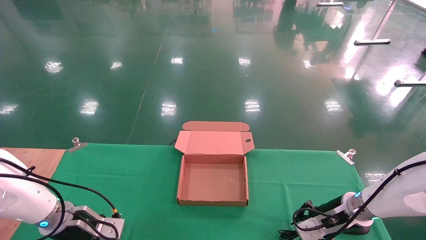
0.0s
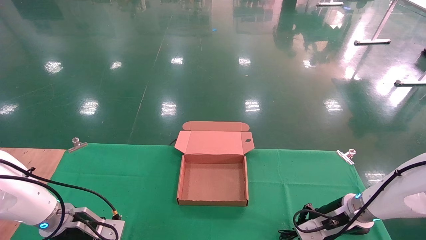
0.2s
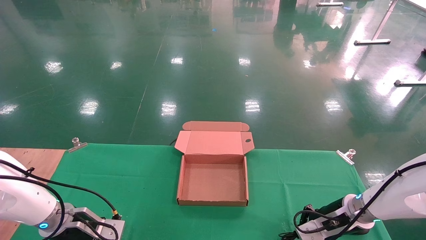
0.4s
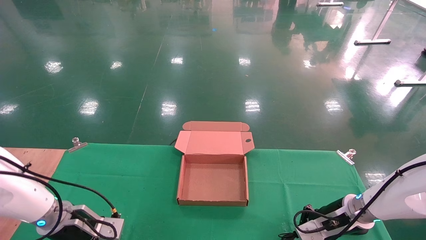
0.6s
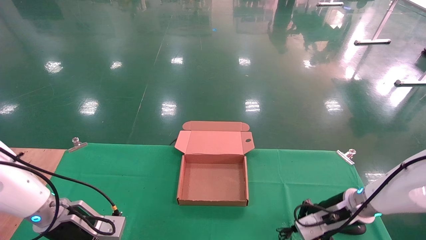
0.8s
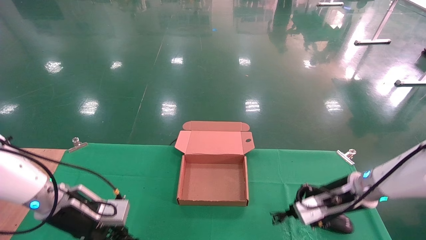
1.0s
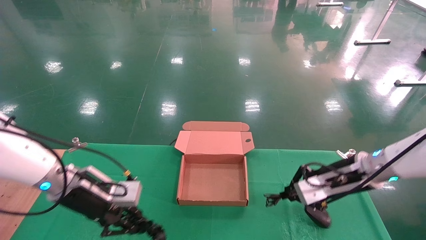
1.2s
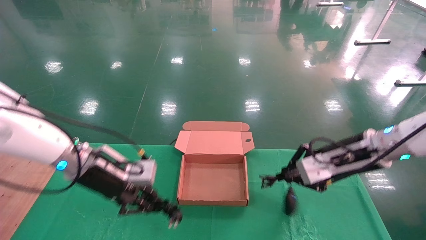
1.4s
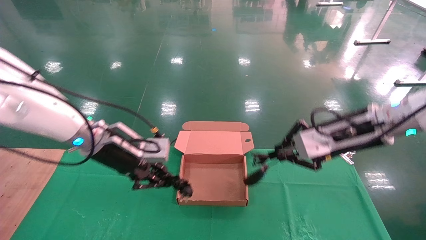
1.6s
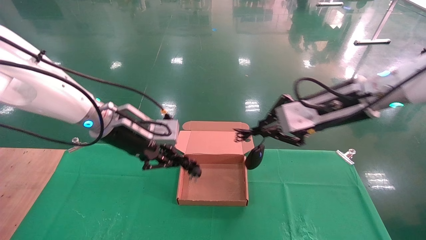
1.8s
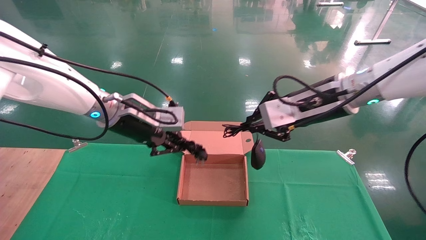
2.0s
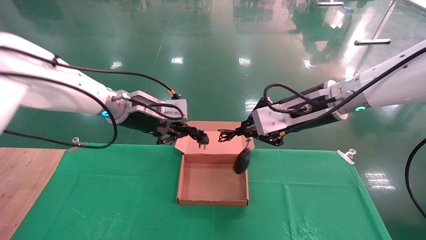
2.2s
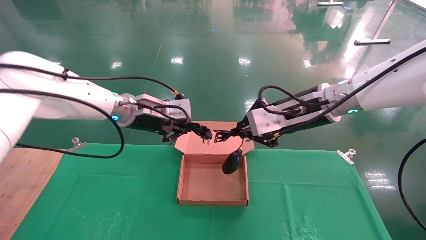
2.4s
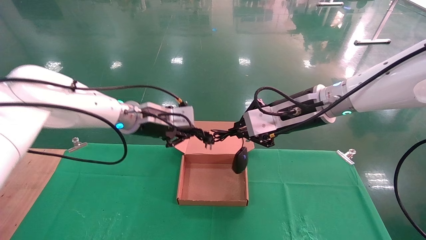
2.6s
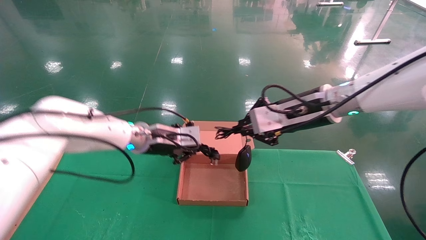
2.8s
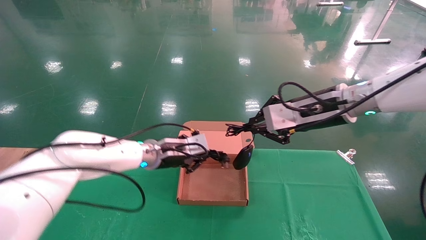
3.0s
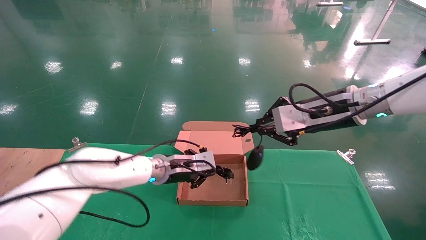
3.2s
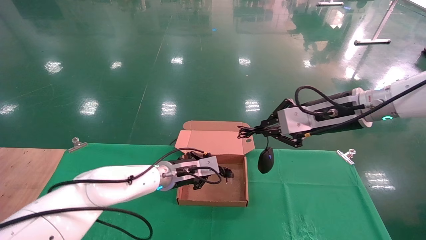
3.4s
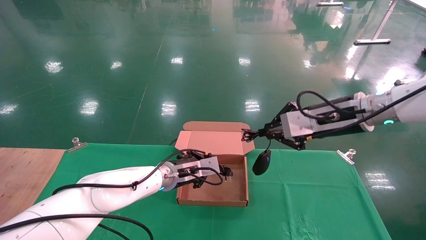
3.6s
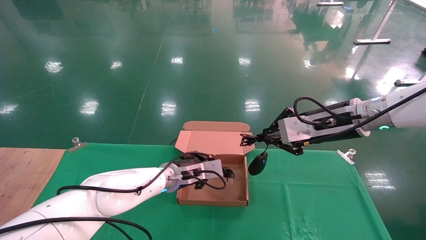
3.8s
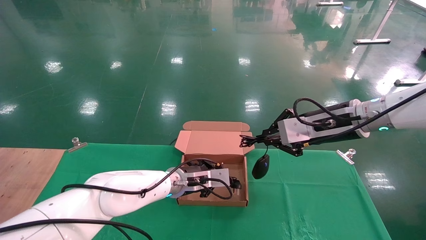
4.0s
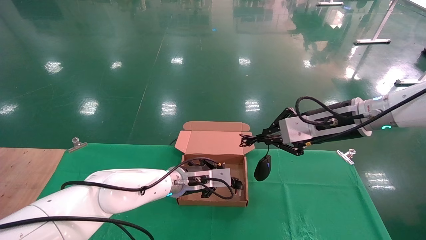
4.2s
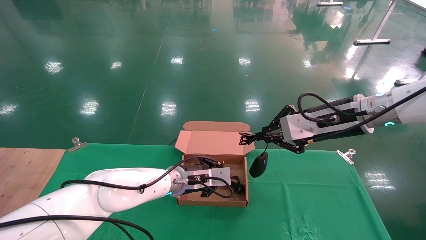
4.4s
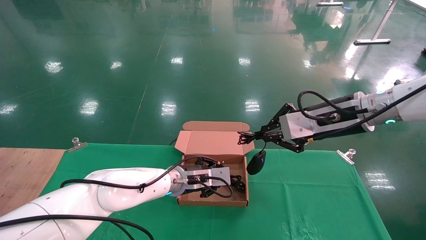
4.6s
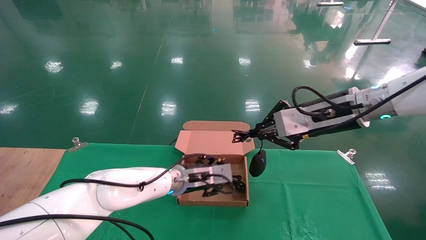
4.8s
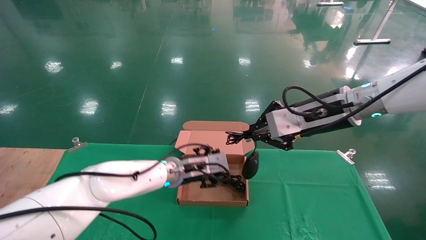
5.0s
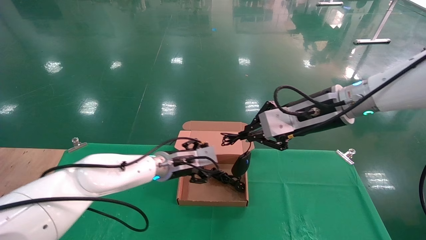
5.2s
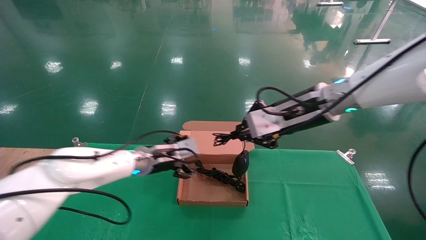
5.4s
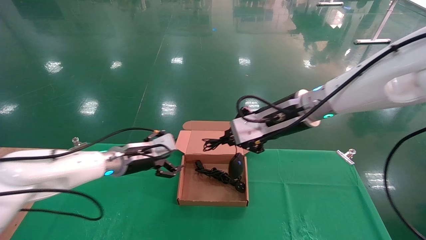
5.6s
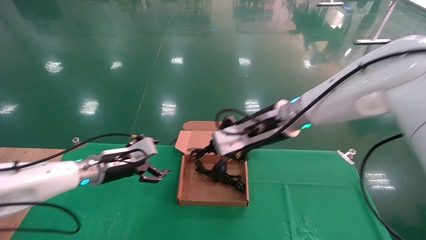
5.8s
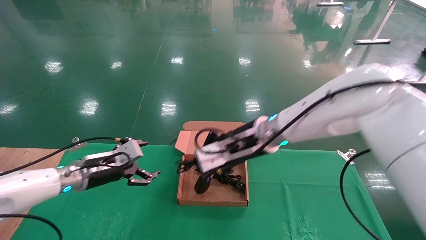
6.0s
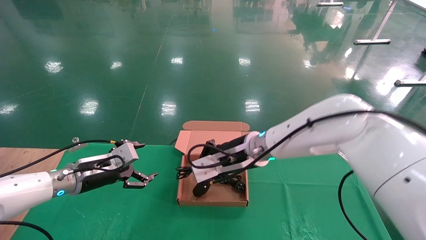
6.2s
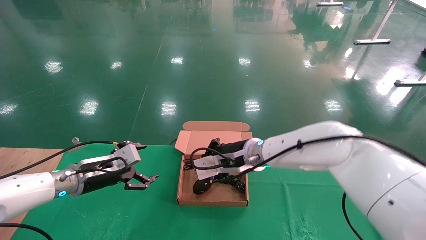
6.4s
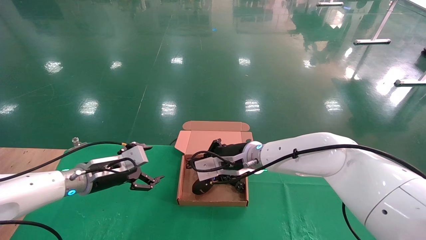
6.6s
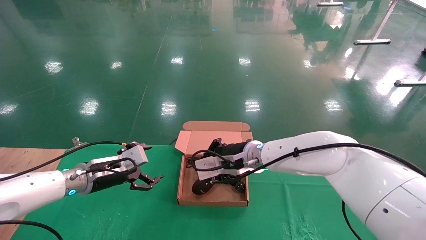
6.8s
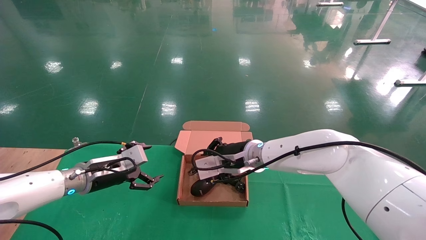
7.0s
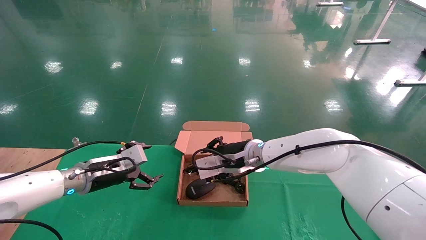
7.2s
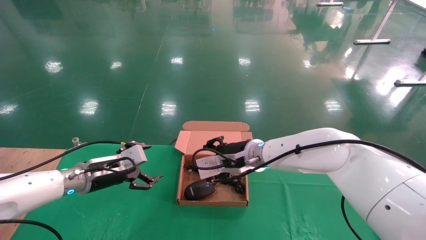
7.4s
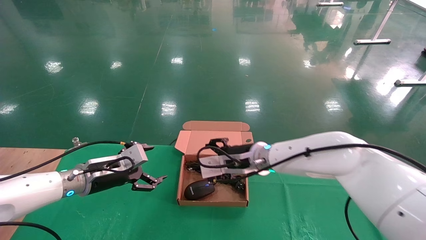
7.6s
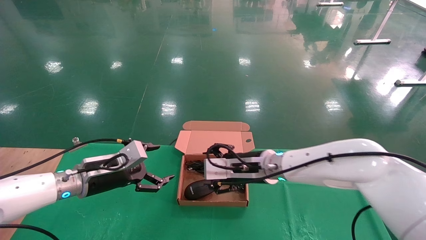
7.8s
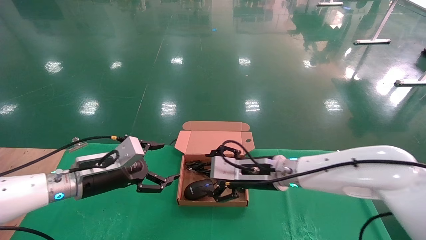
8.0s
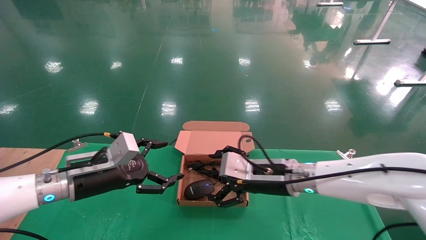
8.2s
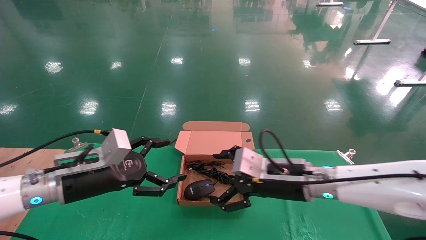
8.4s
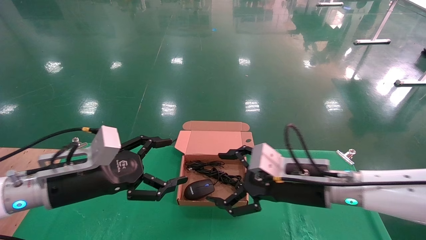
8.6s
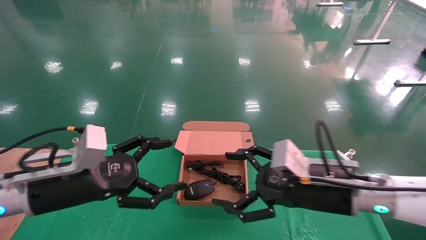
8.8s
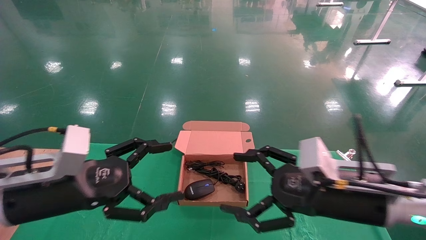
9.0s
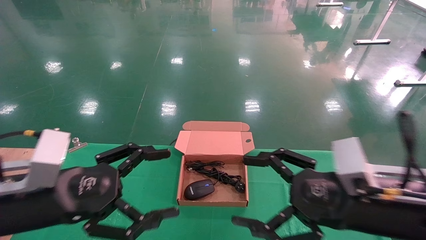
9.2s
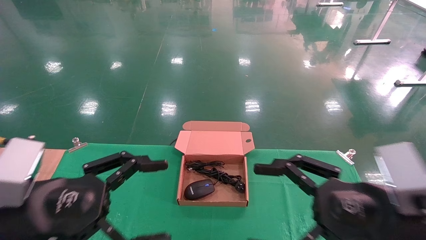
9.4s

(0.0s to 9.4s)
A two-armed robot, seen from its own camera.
Step, 1.2s - 6.4s: Place the mouse and power cord into the box.
0.0s - 1.6s: The right gripper goes roughly 20 cm upward, and closes. The left gripper moves upward and to the right, roughly 20 cm, and closes.
1.6s - 3.2s: The left gripper heads downward, to the right and forward, covering approximately 15 cm.
3.2s - 4.8s: The left gripper opens its fingers.
4.8s - 6.2s: The right gripper is displaced to the left and downward by roughly 20 cm. The left gripper travels to the left by approximately 20 cm, and opens.
6.2s - 7.8s: The right gripper is displaced downward by approximately 5 cm, and opens up.
7.8s - 9.4s: The right gripper shifts about 25 cm backward and to the right, while the left gripper moves backward, about 20 cm.

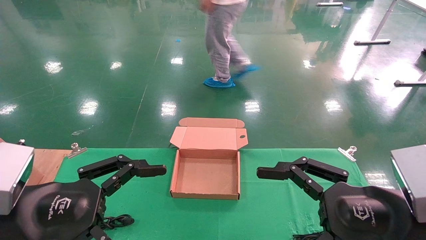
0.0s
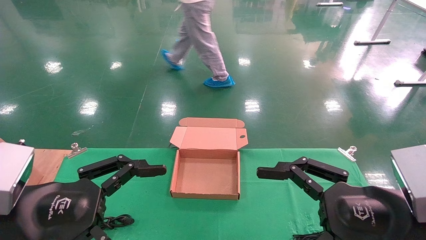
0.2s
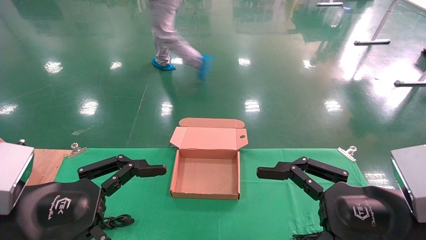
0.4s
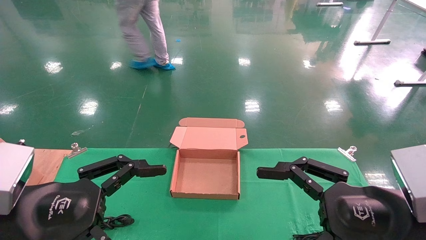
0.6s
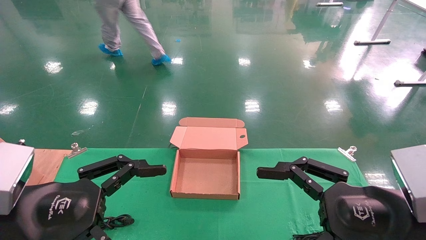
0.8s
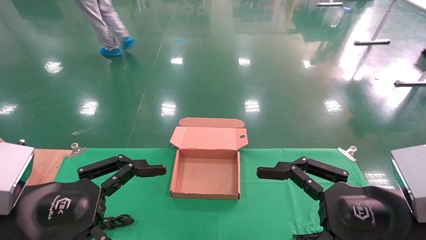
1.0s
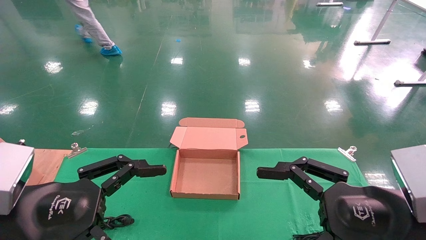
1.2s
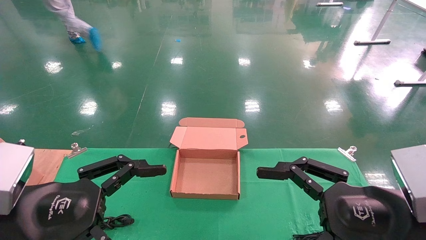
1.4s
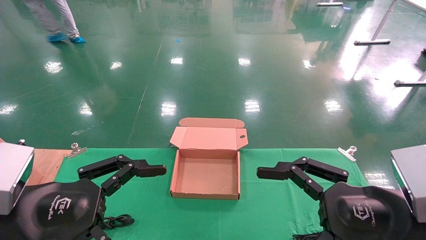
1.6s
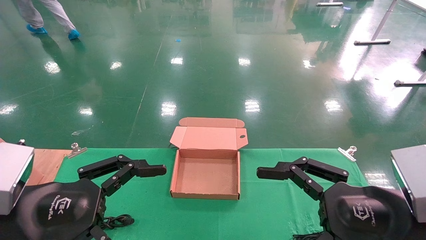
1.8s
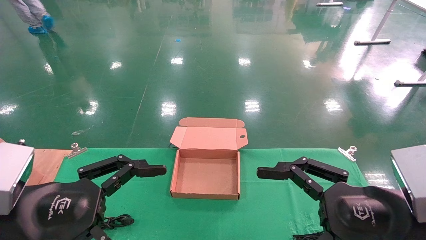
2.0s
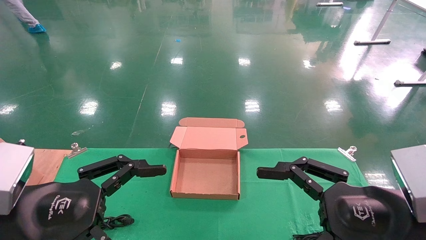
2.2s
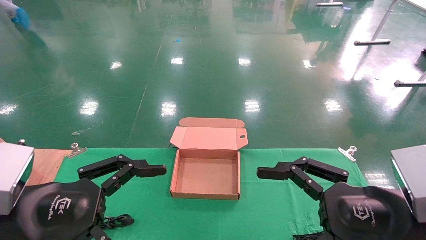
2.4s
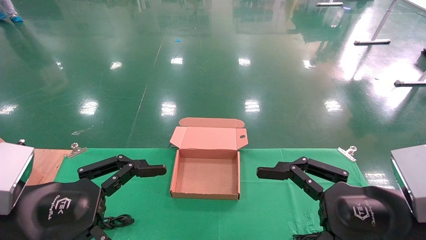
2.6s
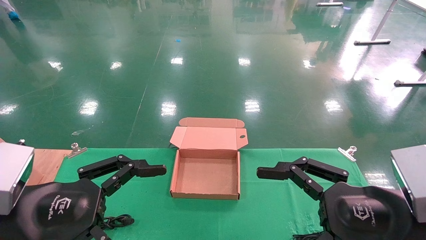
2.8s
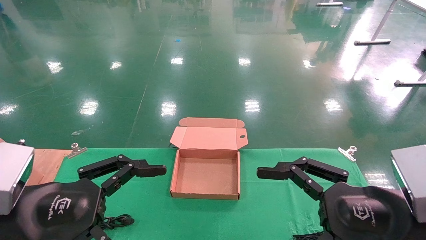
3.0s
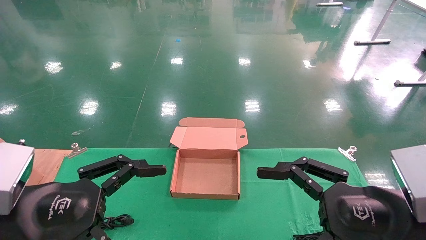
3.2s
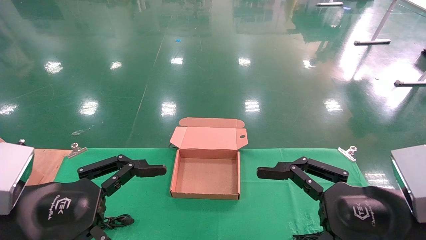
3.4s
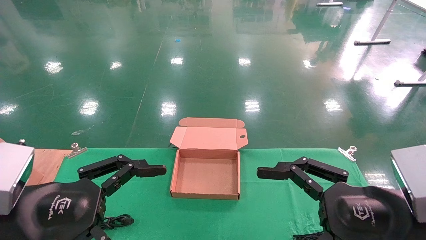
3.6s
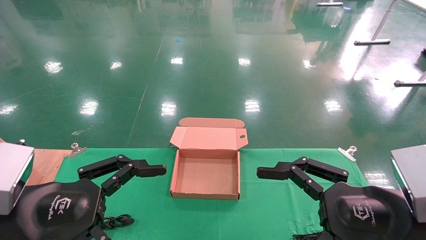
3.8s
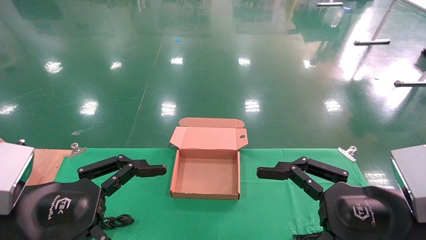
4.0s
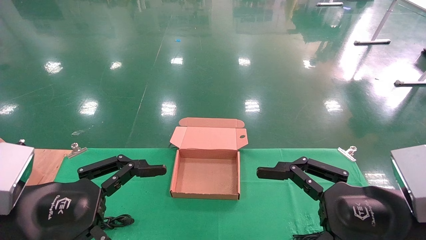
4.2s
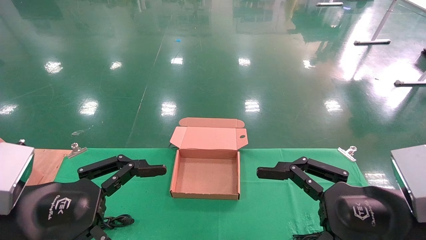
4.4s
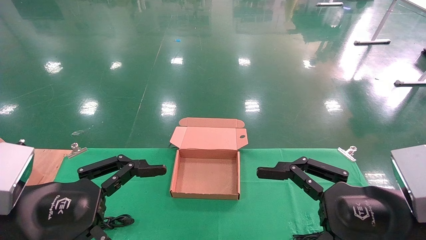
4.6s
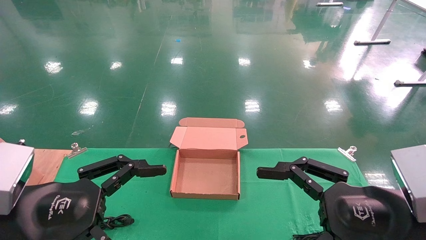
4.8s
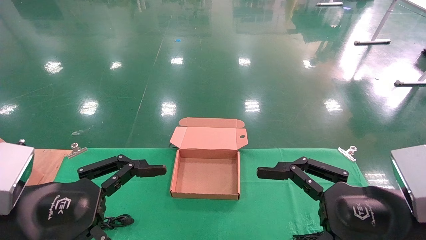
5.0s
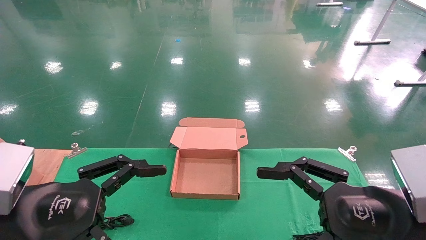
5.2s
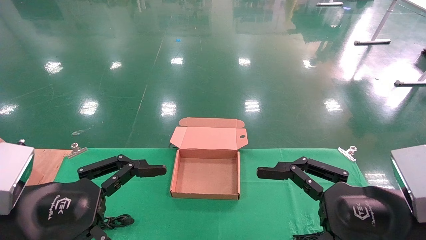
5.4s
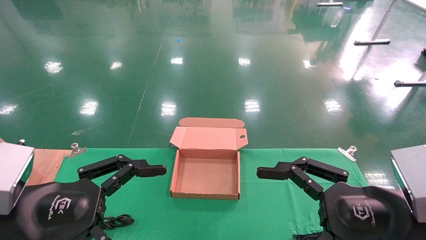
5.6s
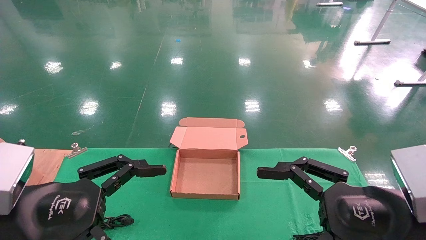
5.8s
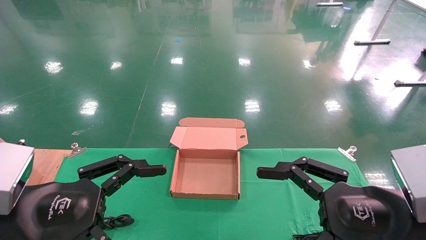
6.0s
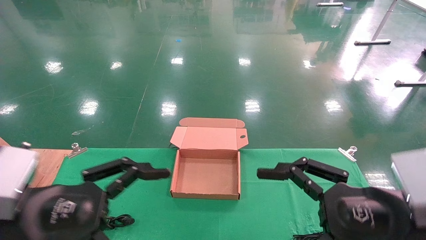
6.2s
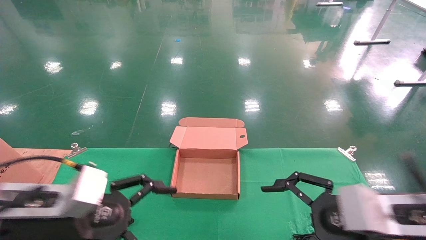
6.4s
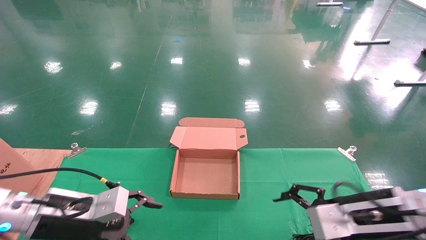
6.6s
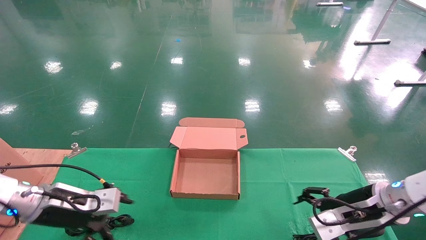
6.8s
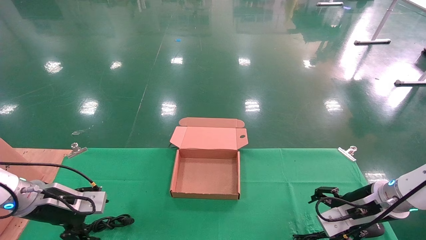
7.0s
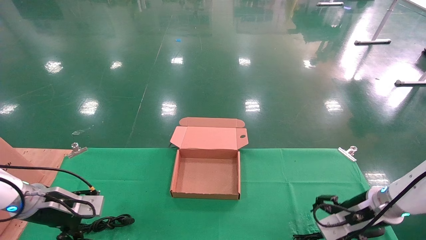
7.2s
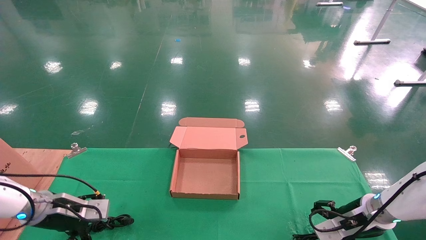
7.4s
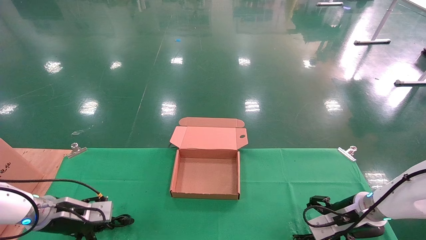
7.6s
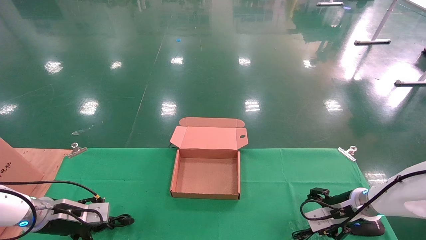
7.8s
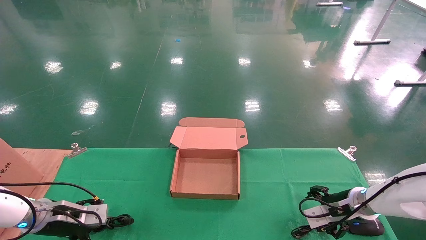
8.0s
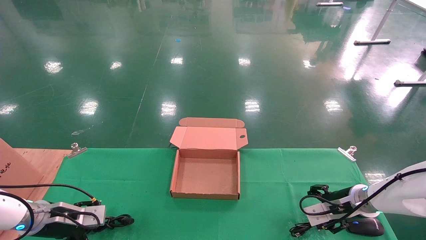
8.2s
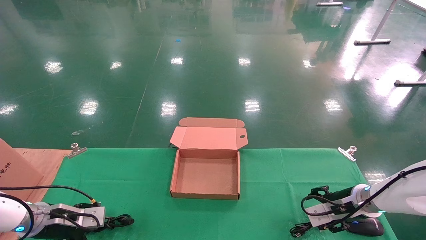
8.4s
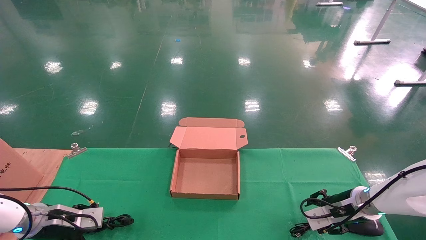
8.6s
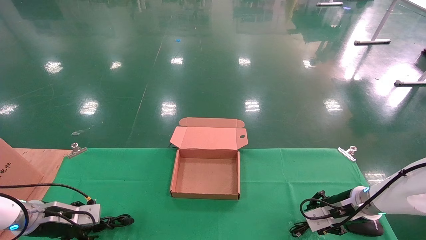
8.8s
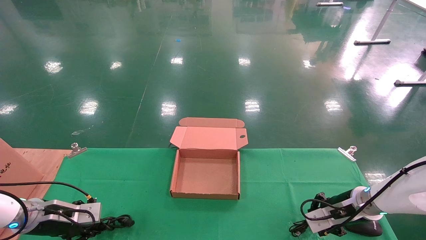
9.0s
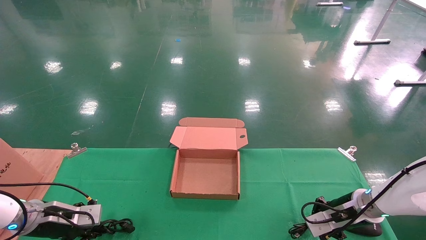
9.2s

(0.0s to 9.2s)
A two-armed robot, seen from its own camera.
0.0s - 4.6s: Neither gripper changes place.
4.6s - 6.2s: There are only small adjustments of the grippers.
6.2s - 7.6s: The right gripper goes some 25 cm forward and downward. The left gripper goes roughly 25 cm forward, downward and to the left.
7.6s - 9.2s: The right gripper closes its fingers. Meanwhile the left gripper closes its fingers.
